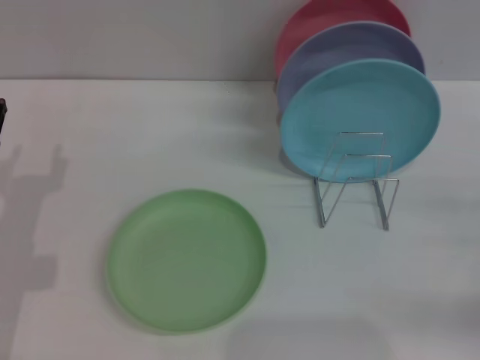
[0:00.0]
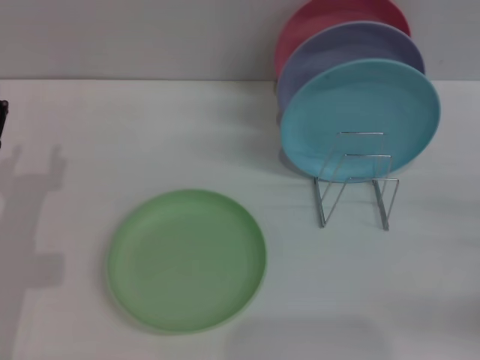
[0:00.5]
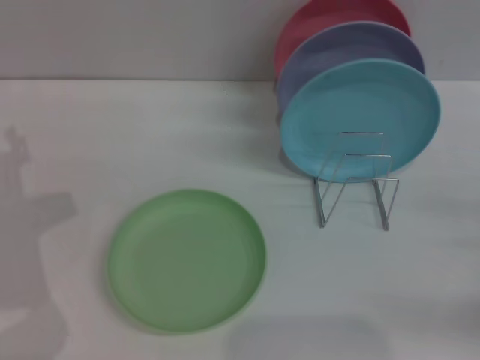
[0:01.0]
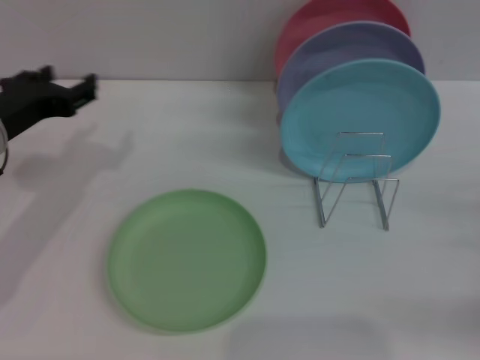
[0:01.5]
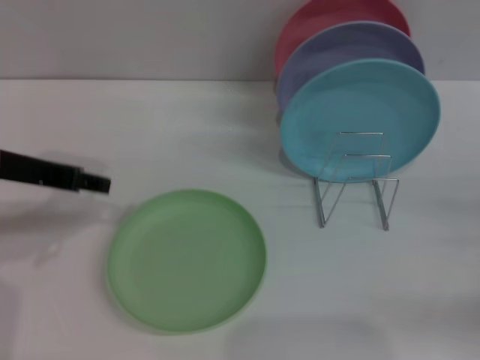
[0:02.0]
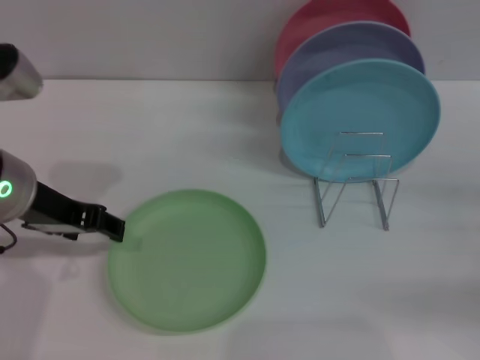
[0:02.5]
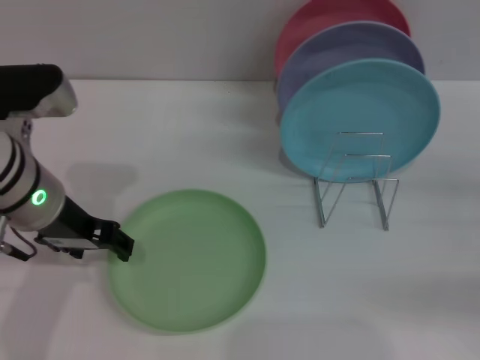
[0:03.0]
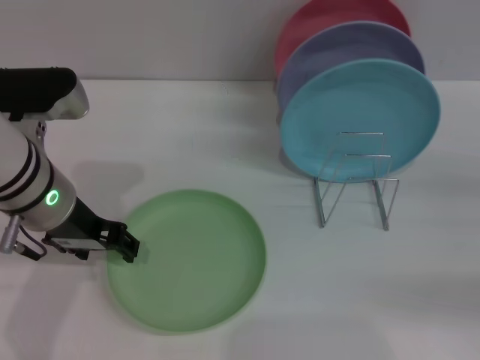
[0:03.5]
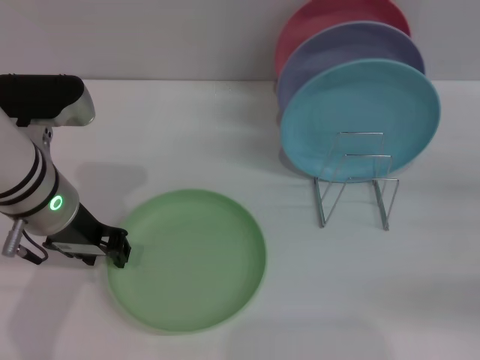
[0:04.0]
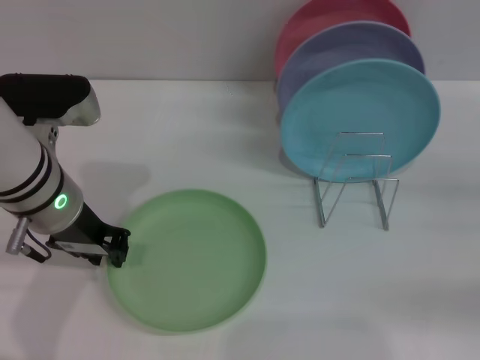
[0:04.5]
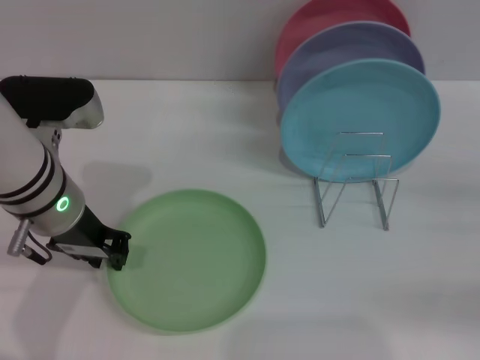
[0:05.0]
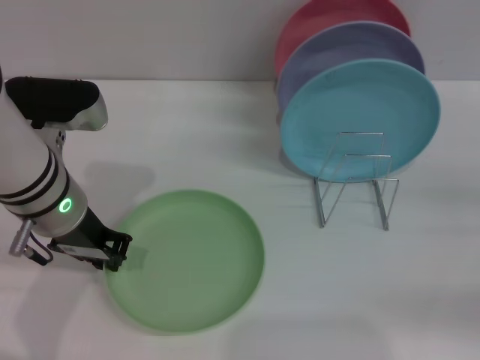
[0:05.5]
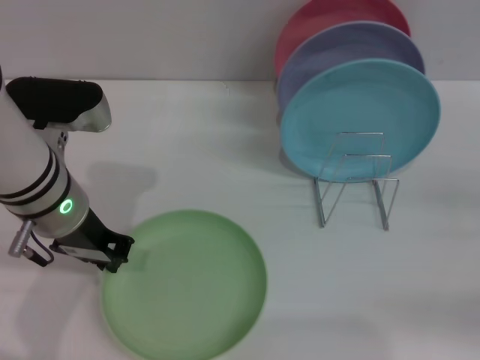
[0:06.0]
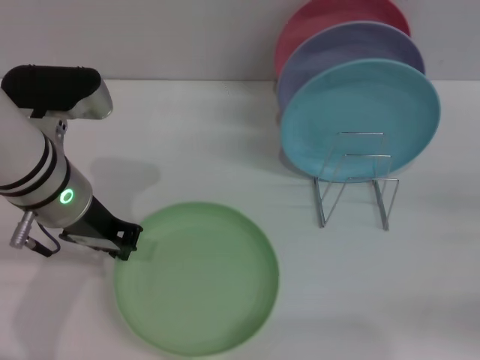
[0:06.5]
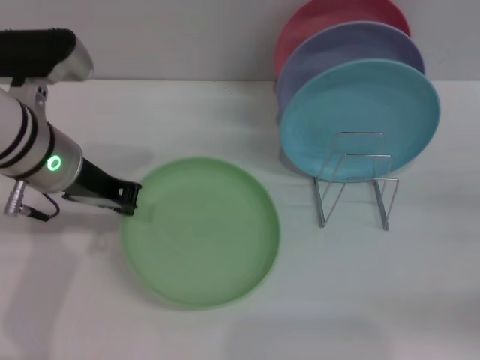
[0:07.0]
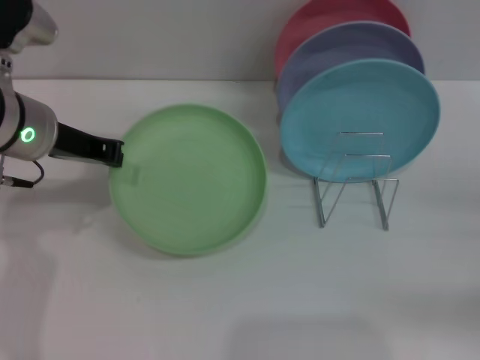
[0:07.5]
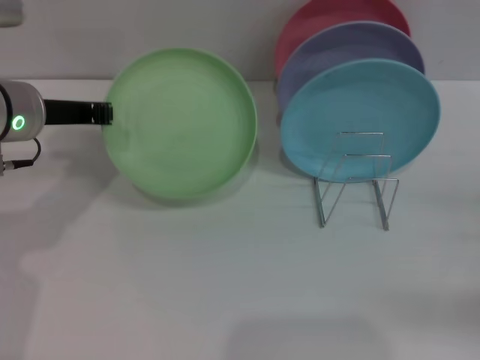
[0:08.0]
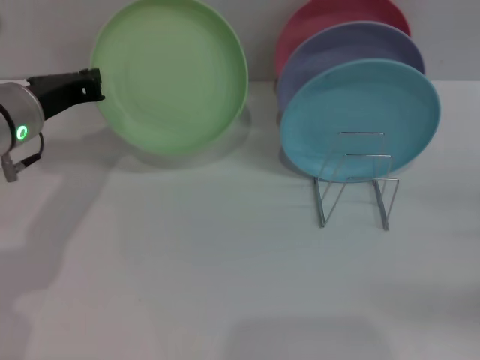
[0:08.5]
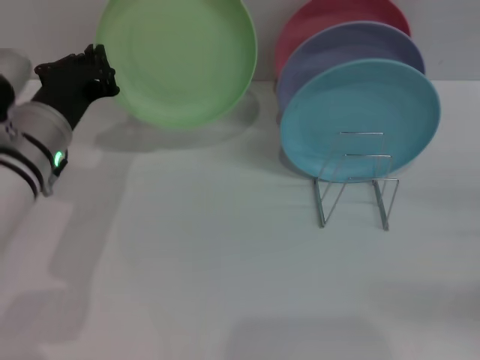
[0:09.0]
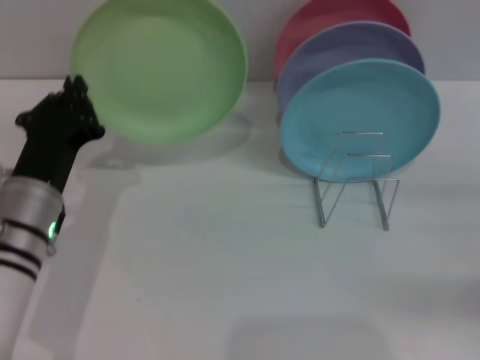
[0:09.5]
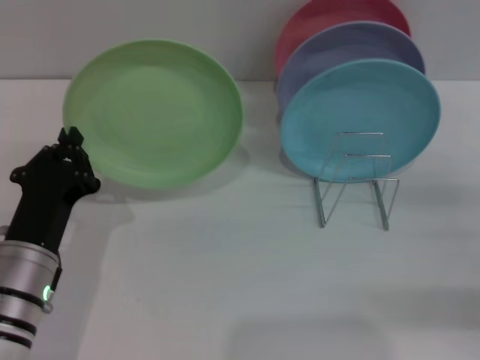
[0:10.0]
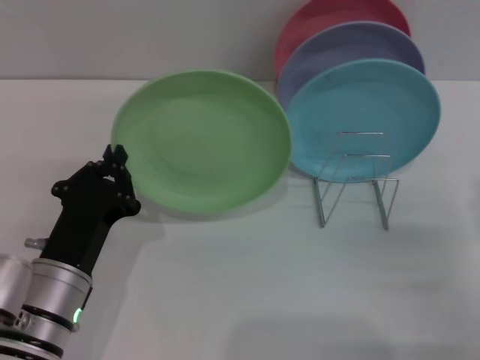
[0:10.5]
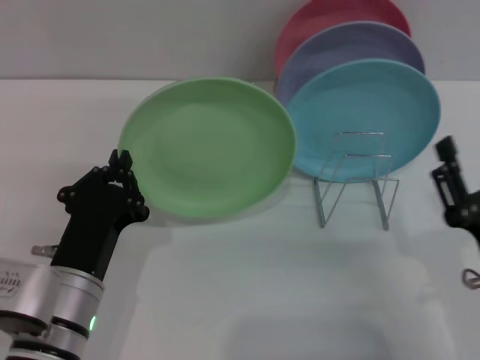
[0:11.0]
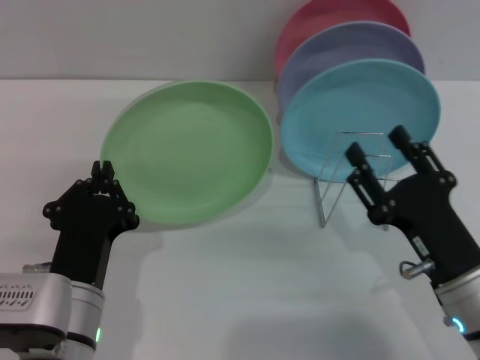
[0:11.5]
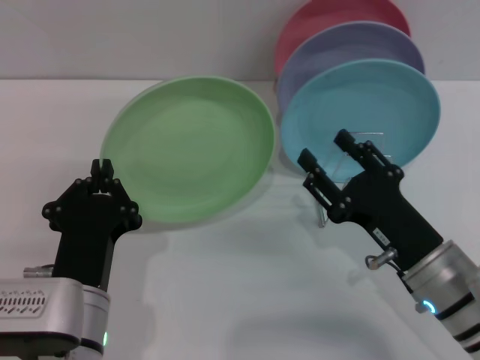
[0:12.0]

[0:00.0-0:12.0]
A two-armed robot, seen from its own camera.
Task of the whole recording: Grip the plate with one hand, pass it to the other, then set it on the shelf.
Step, 0:00.0 to 0:07.5: Pick up the plate with the left gripper.
0:00.0 to 0:02.0: The left gripper heads upward, covering roughly 15 cm.
0:02.0 to 0:04.0: The left gripper travels to the right by approximately 5 cm.
0:04.0 to 0:06.0: The left gripper closes.
0:06.0 to 0:08.0: The left gripper travels to the left by some 5 cm.
0:08.0 to 0:10.0: The left gripper travels backward and downward by roughly 20 cm.
0:10.0 to 0:12.0: The left gripper is displaced to the right and backward by some 10 cm. The right gripper is displaced to the left by approximately 20 cm.

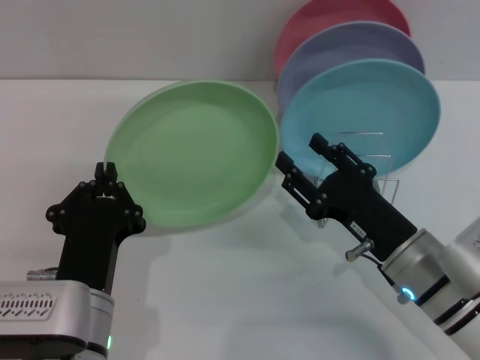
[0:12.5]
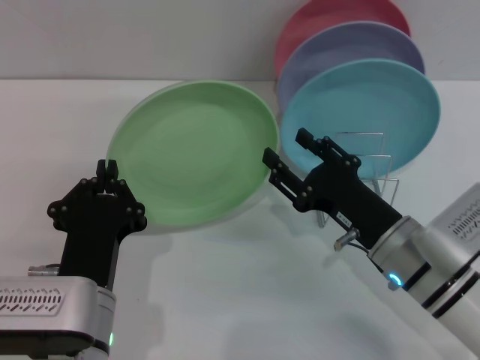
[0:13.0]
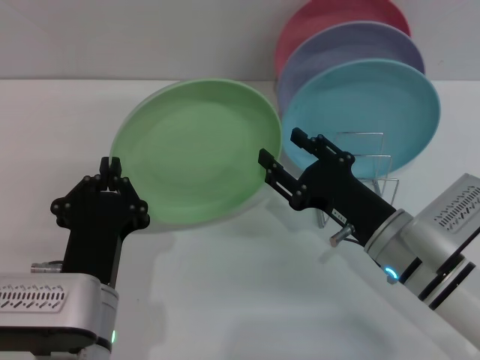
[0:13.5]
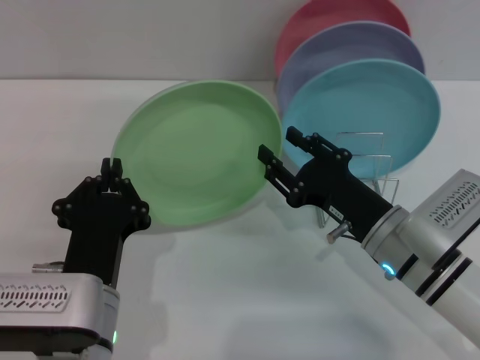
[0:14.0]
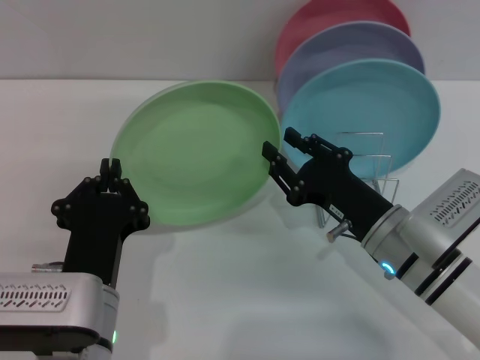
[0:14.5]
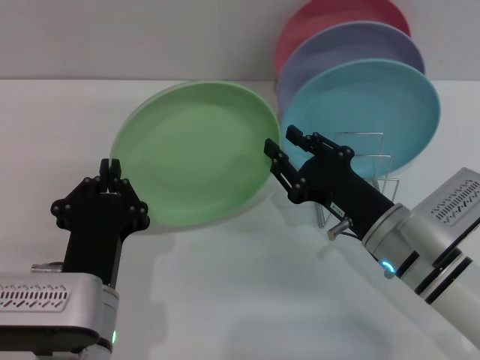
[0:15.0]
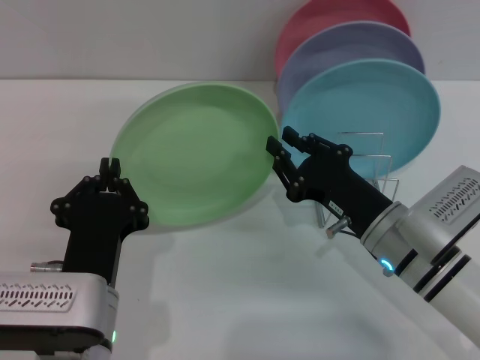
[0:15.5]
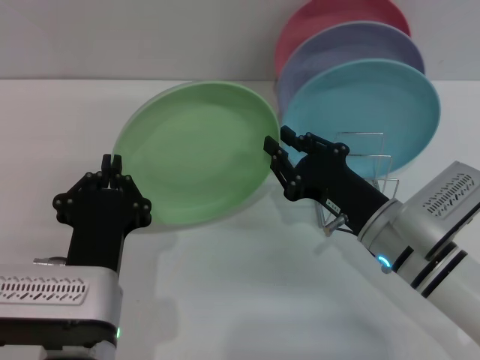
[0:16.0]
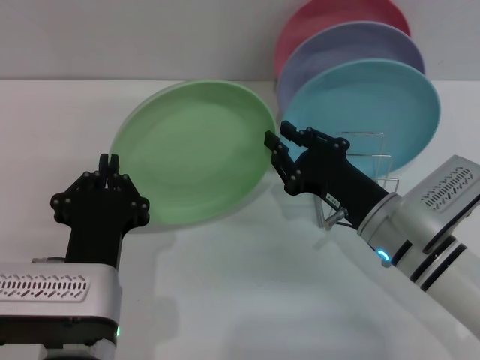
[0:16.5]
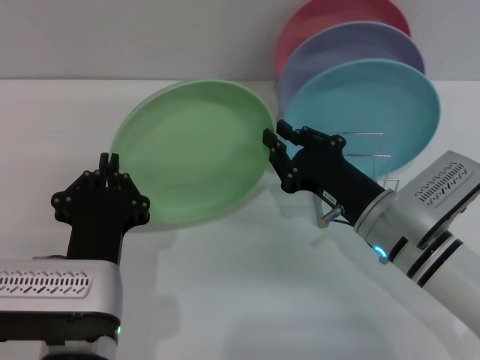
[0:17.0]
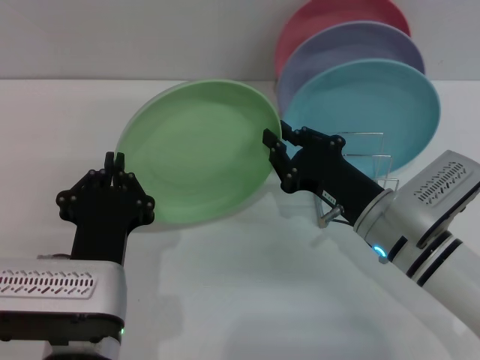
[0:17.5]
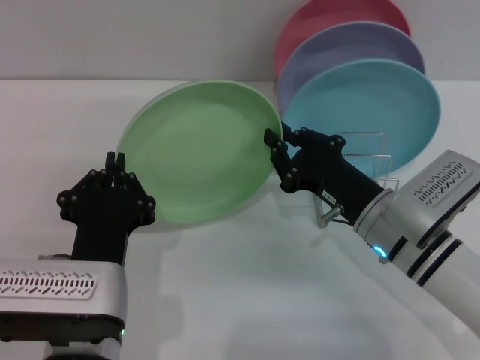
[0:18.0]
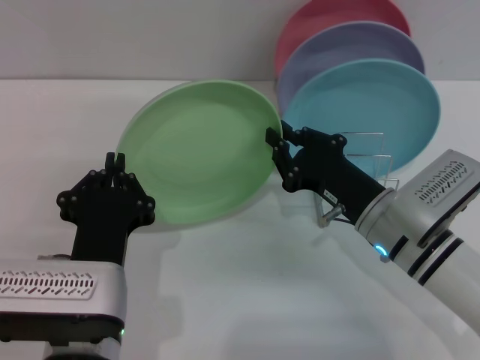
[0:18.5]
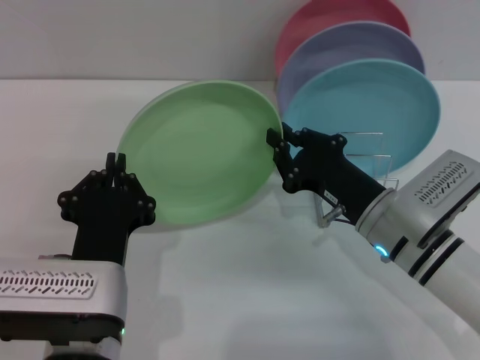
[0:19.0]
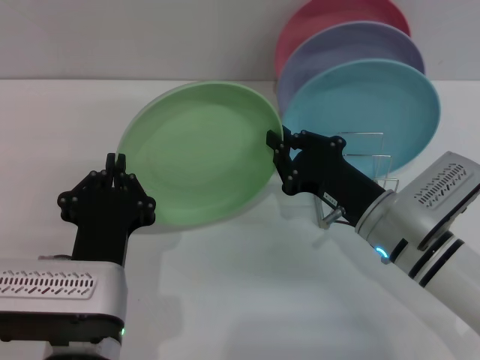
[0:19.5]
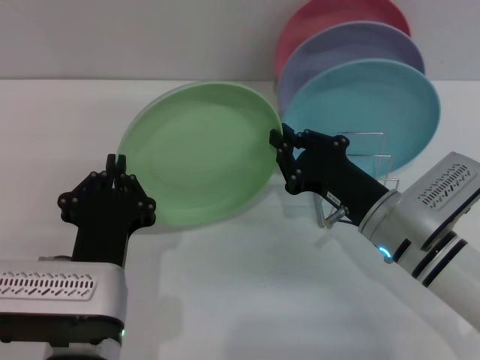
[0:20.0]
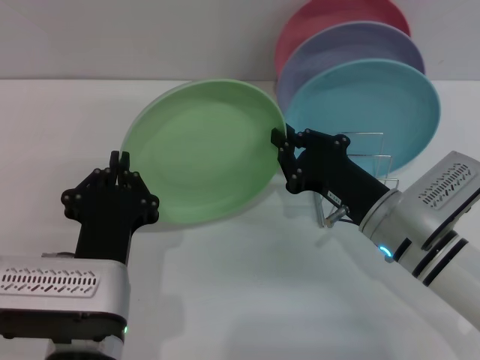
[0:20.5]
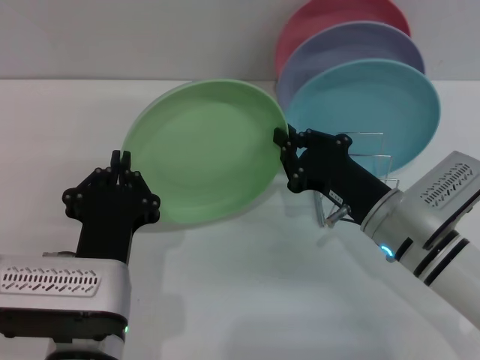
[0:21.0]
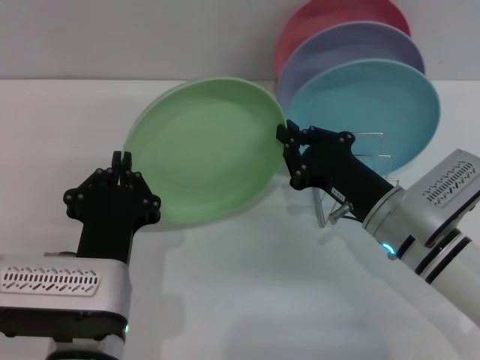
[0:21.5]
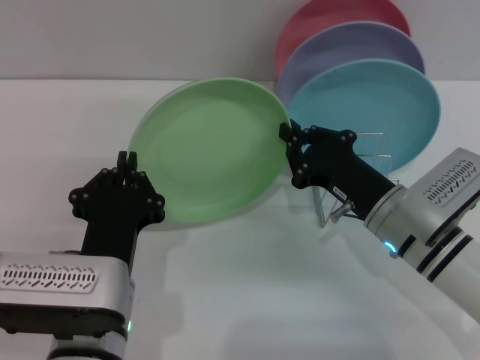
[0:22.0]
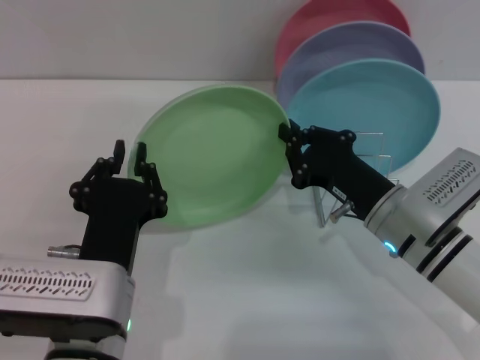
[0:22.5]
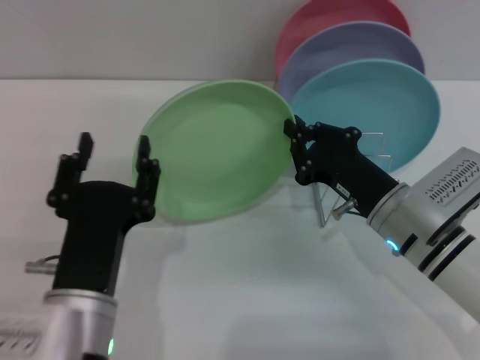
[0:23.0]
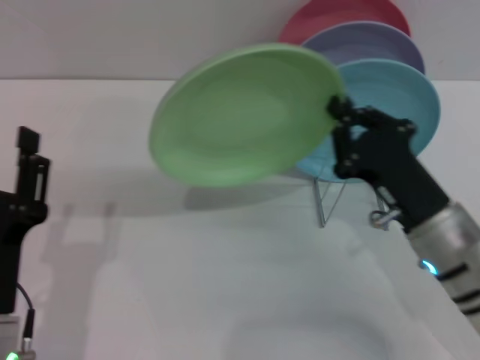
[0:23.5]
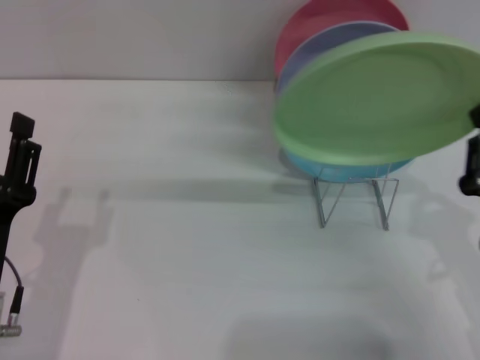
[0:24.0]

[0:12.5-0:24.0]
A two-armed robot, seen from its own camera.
Task of the whole recording: Grip the plate with one hand, pass it to the other, then set it on the shelf.
Step, 0:12.5 to 0:22.5: Pass the plate from the left gripper to the right gripper.
0:12.5 to 0:14.5: The right gripper closes up.
0:14.5 to 0:16.5: The grippers move only a little.
0:16.5 to 0:22.0: Neither gripper changes place.
0:22.0 to 0:24.0: The right gripper is displaced backward and to the right by approximately 15 cm. Meanwhile the left gripper travels to the left by approximately 10 cm, and opens its fingers.

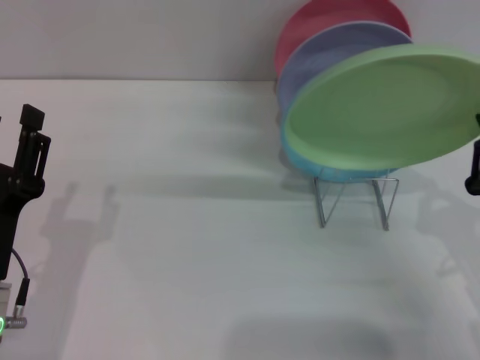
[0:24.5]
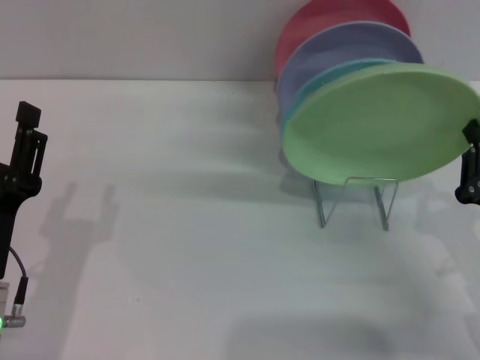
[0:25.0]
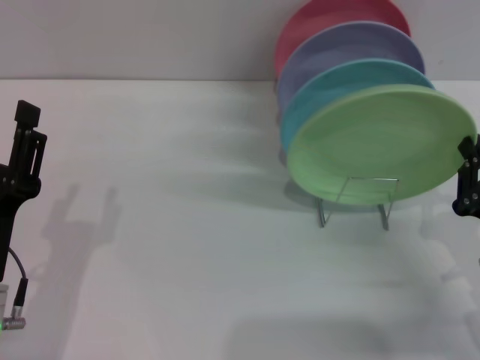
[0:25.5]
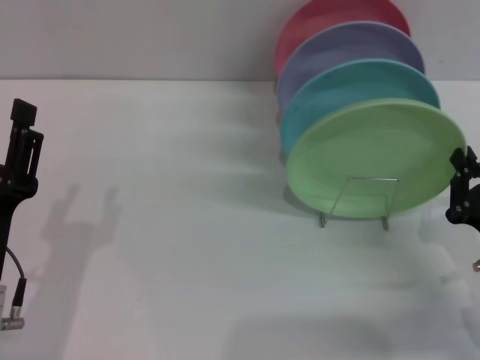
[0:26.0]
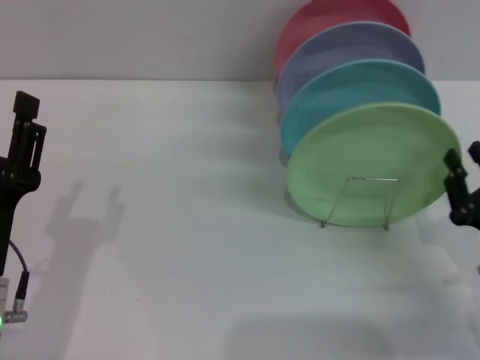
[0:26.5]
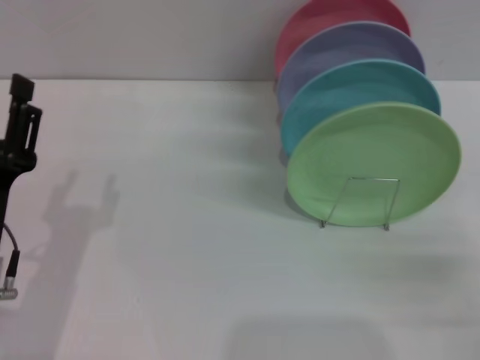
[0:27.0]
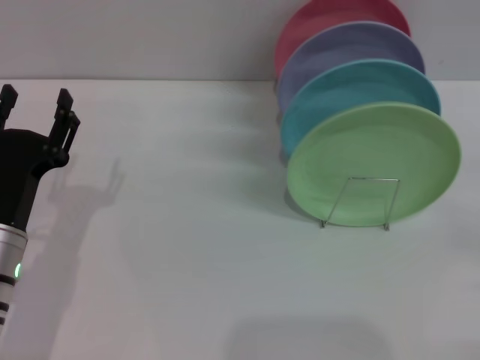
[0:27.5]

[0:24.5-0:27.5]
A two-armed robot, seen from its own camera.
Task of the whole recording: Grip the plate with one hand, pass it to the other, then set it on the shelf.
Step, 0:24.5 to 0:26.5: Place the plate on the shelf with the right gripper.
0:24.5 to 0:26.0: There are only small adjustments of the grippers.
0:26.0 to 0:27.5: The left gripper goes about 5 cm forward; the right gripper shifts roughly 10 cm to the right, and opens up.
